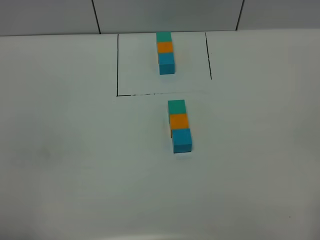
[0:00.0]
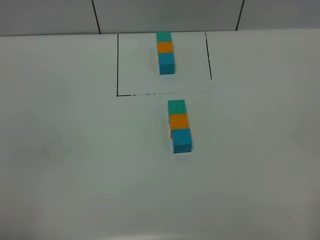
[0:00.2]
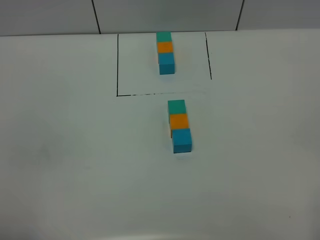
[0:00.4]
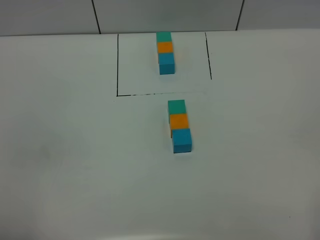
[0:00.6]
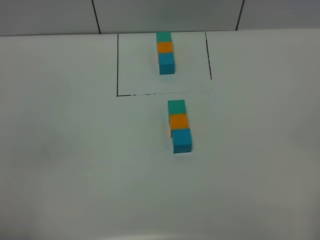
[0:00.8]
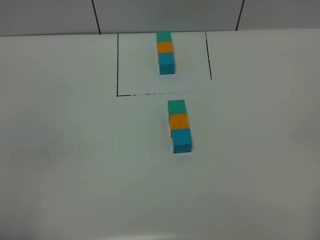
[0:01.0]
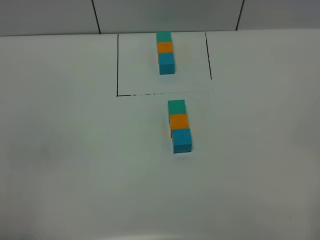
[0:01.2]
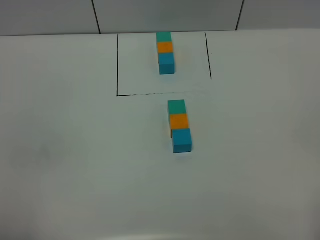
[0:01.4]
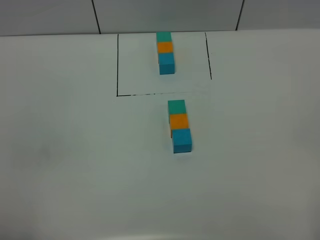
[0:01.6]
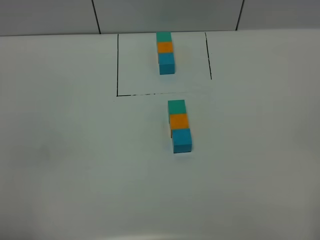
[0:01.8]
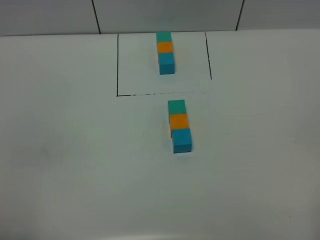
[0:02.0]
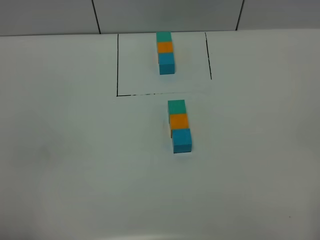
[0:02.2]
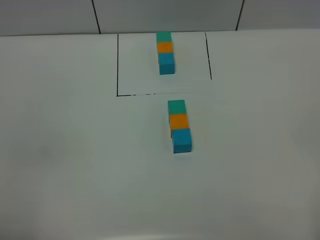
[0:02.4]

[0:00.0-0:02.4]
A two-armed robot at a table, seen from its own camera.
Task of the whole recording: According to the building block template in front, assemble the scattered blocks together.
0:00.0 to 0:02.4: The two grippers keep their place.

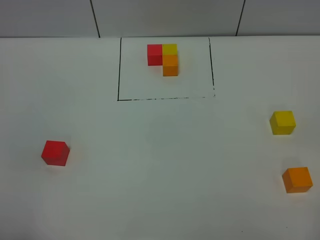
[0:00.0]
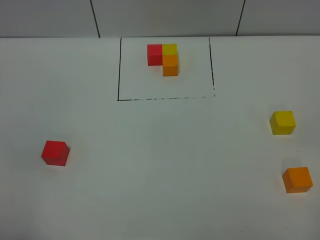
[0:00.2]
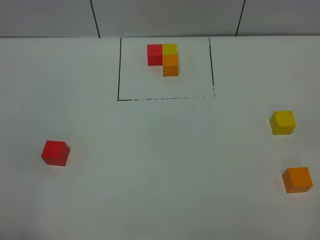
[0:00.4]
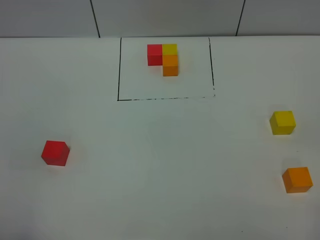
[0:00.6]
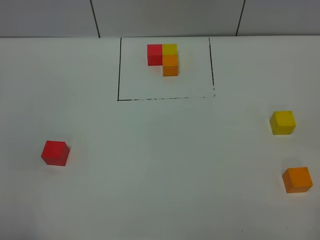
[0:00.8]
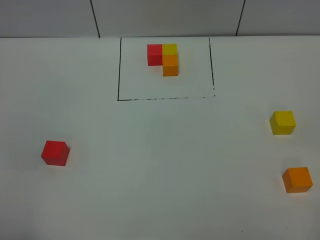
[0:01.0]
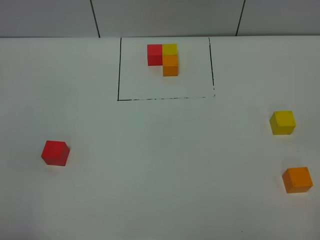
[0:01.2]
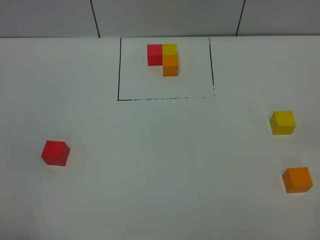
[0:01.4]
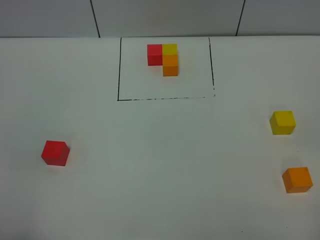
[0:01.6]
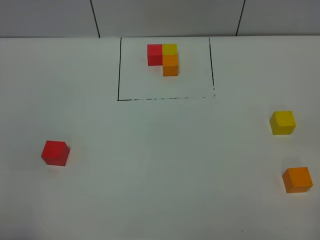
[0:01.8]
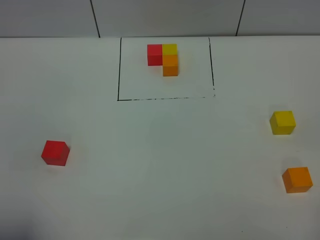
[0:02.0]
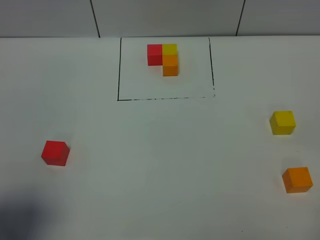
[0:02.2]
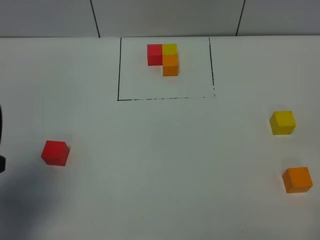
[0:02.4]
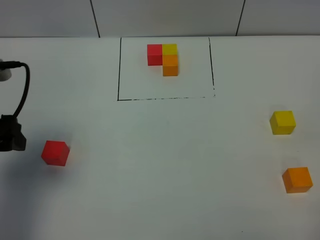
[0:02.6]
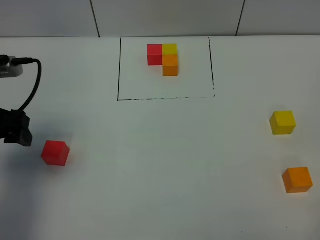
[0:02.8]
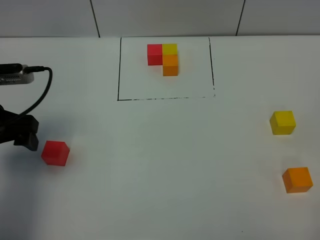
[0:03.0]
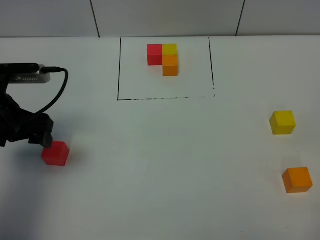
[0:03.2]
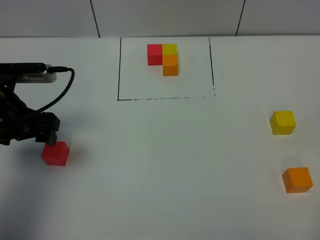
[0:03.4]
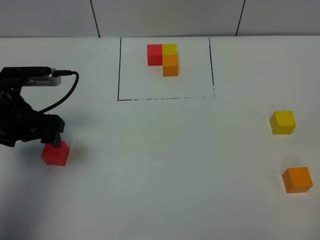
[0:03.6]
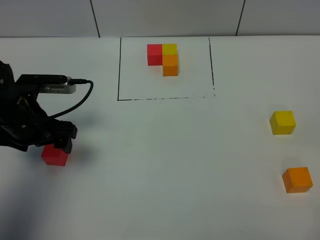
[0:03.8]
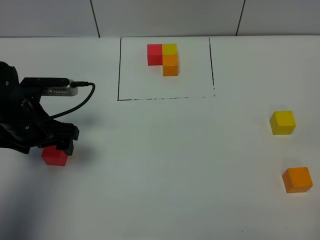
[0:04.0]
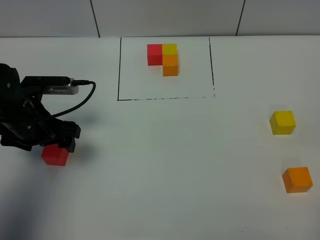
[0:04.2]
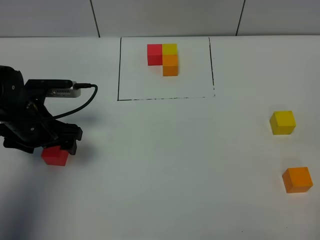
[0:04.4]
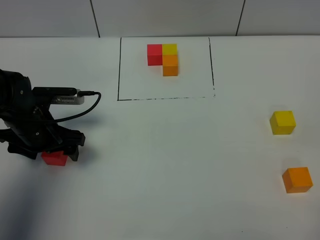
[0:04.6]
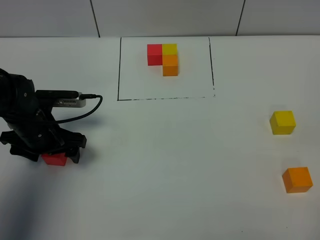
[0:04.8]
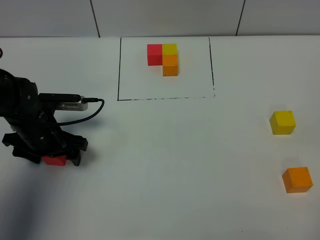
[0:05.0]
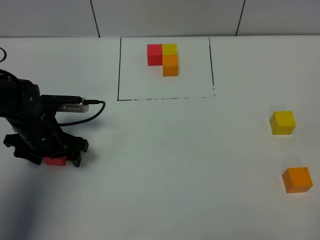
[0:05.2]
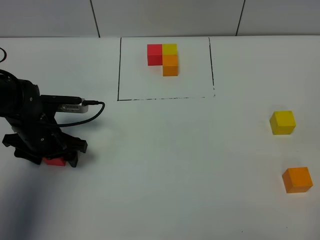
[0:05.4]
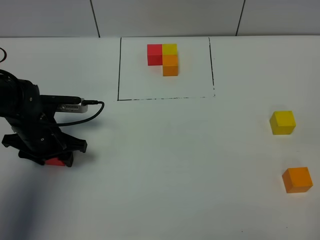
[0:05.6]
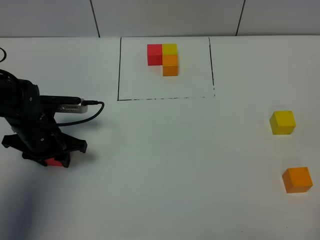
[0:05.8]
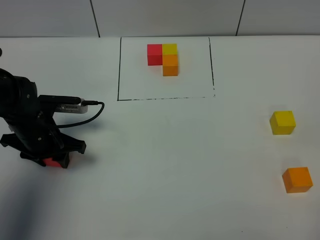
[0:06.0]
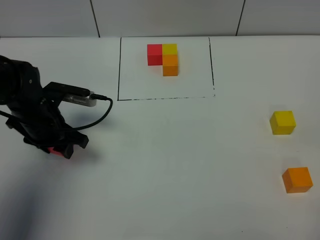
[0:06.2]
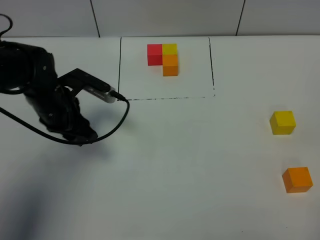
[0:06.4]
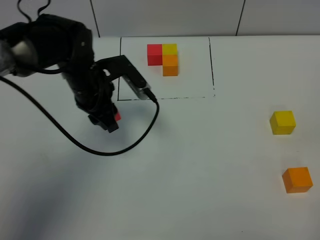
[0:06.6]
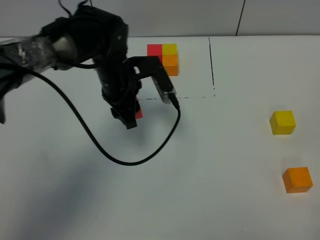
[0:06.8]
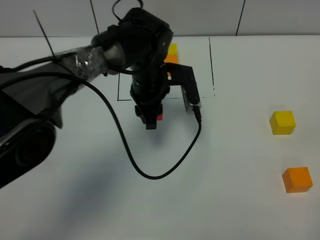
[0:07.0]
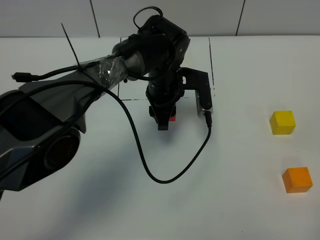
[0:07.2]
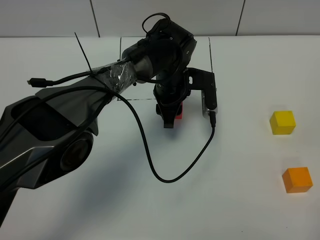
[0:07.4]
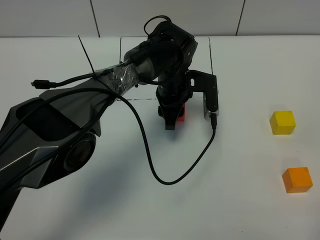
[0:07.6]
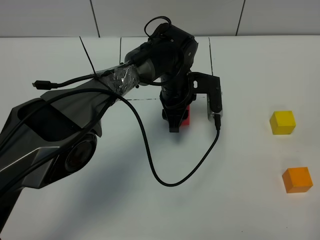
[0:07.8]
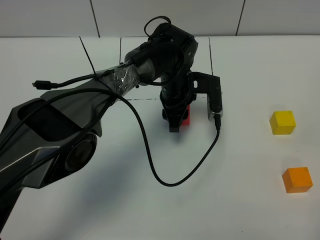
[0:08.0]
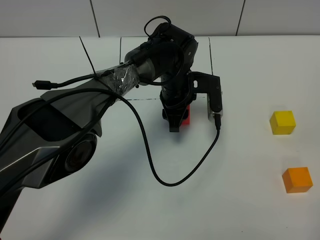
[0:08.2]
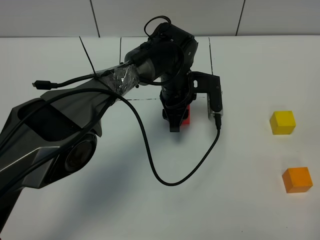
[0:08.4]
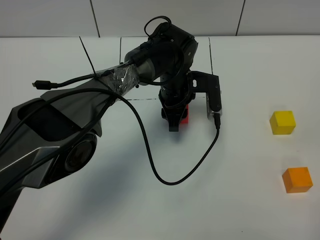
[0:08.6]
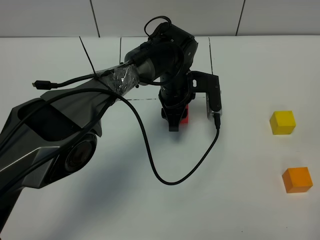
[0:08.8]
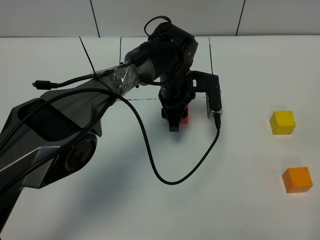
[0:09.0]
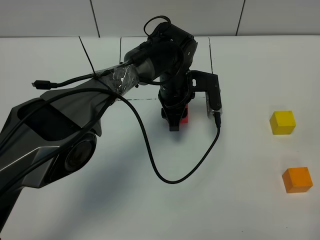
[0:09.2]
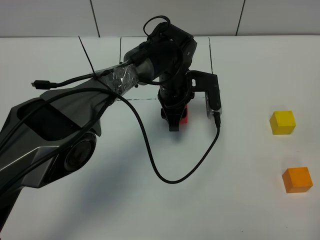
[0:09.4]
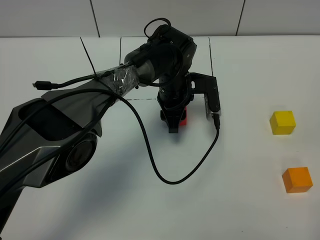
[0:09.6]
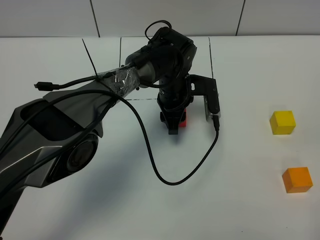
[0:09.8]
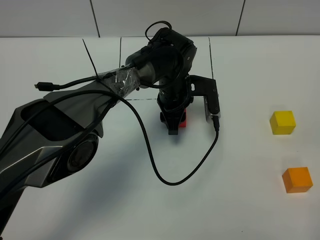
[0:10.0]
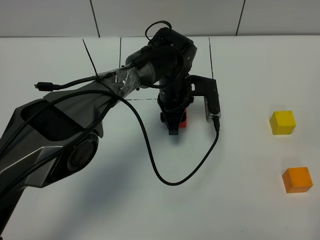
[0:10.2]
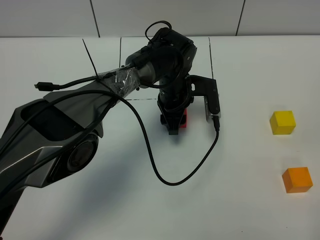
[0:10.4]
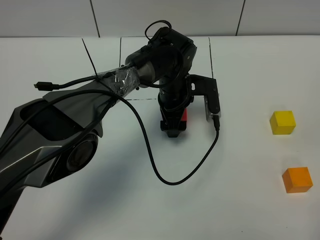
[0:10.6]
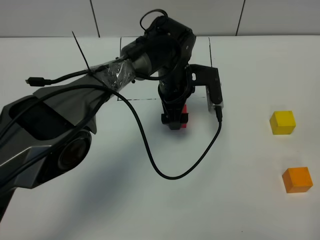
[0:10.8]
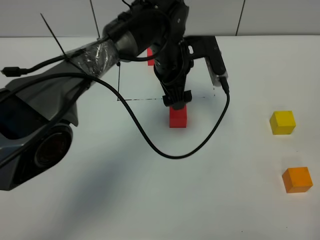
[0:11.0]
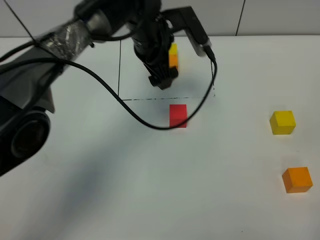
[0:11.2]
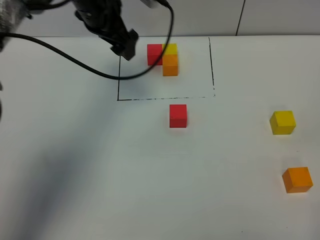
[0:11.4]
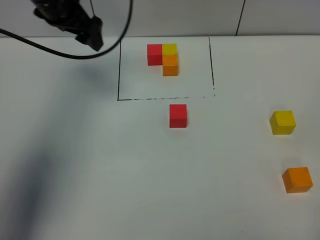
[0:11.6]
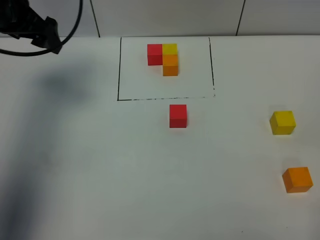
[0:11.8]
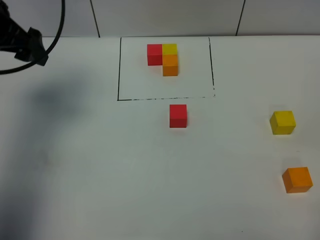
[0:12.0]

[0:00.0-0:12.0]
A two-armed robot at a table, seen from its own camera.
Task of the whole recording: According to the building block template in front, assemble the scattered blocks together.
Step, 0:00.0 to 0:10.8: Put the red build block in the center of the table.
0:00.0 to 0:01.6: Neither gripper changes place.
0:01.6 to 0:03.0: The left gripper shifts approximately 25 cm forward.
0:03.0 to 0:04.4: The left gripper goes about 5 cm downward.
0:04.4 to 0:06.0: The left gripper closes its fingers.
0:06.0 to 0:07.6: The left gripper moves to the right and forward, roughly 30 cm.
0:07.6 to 0:10.4: Neither gripper changes place.
0:10.4 to 0:12.0: The left gripper goes roughly 35 cm to the left and upward, and opens its fingers.

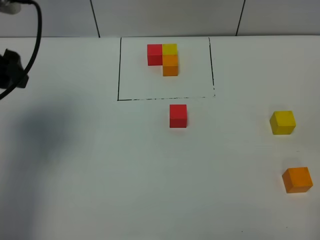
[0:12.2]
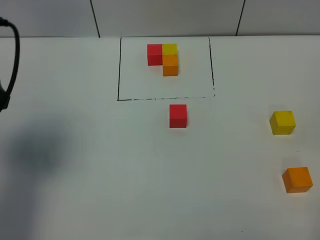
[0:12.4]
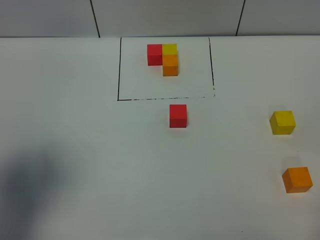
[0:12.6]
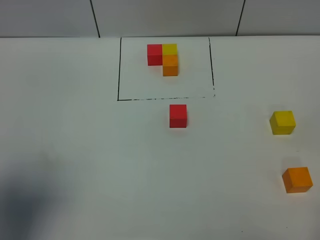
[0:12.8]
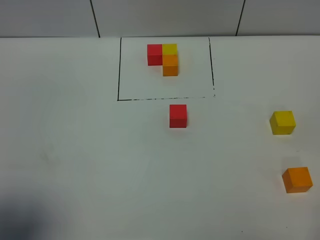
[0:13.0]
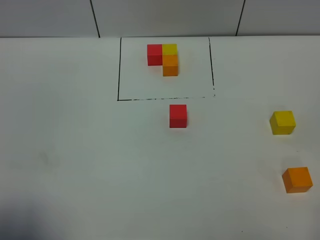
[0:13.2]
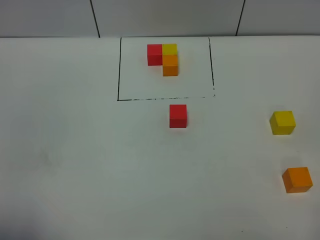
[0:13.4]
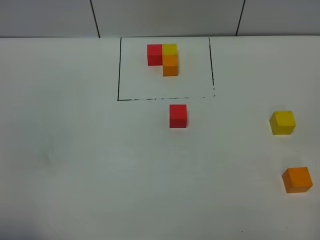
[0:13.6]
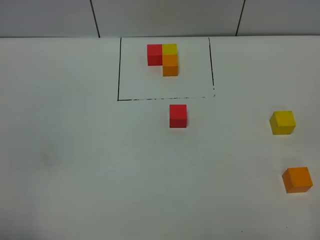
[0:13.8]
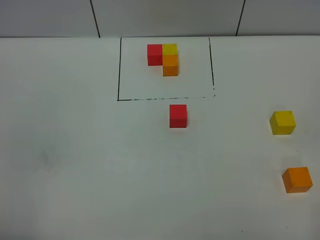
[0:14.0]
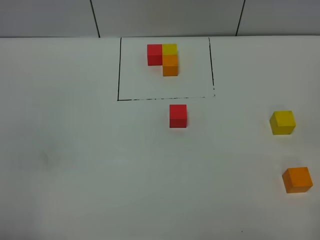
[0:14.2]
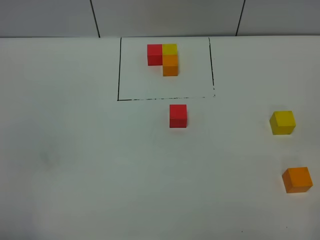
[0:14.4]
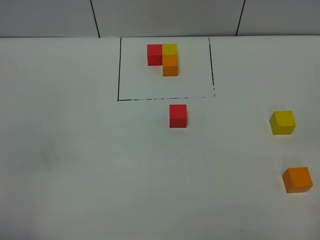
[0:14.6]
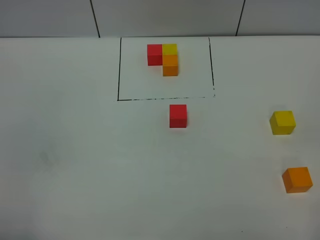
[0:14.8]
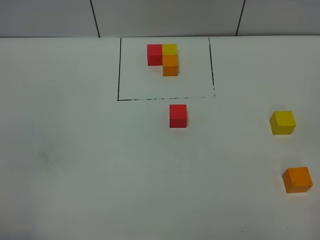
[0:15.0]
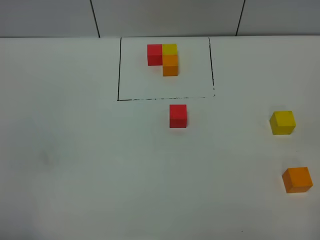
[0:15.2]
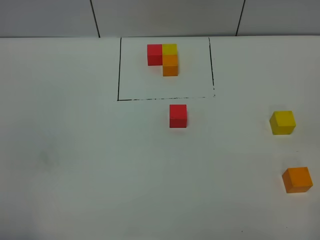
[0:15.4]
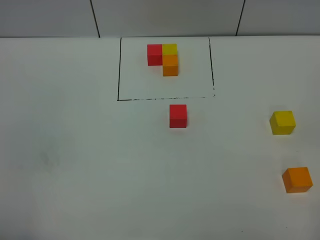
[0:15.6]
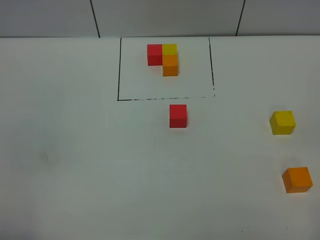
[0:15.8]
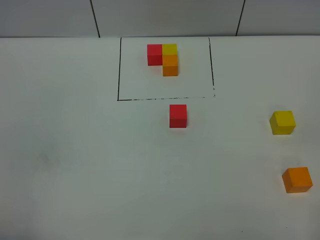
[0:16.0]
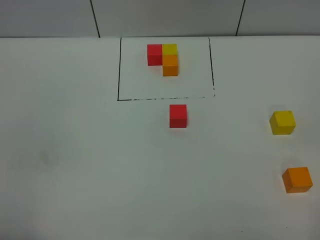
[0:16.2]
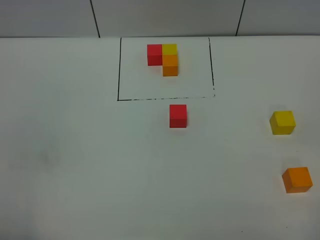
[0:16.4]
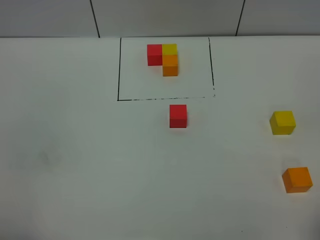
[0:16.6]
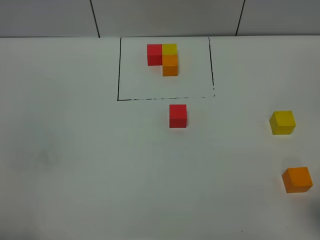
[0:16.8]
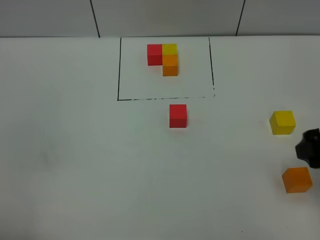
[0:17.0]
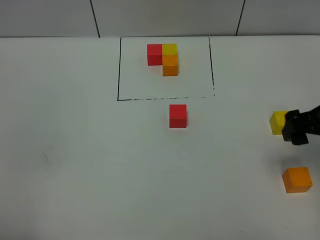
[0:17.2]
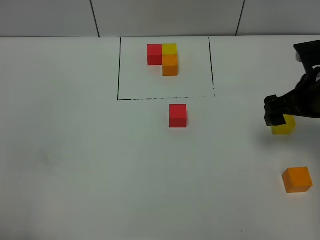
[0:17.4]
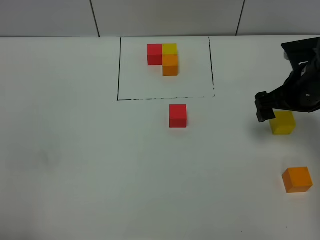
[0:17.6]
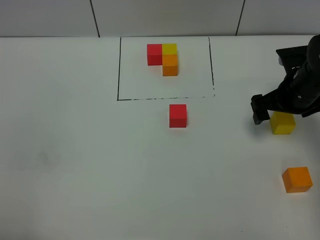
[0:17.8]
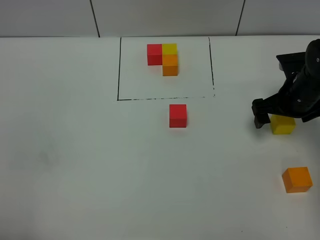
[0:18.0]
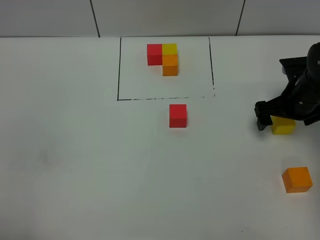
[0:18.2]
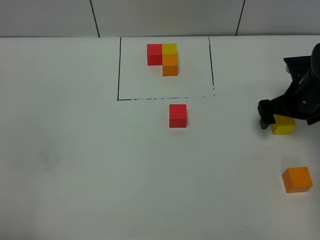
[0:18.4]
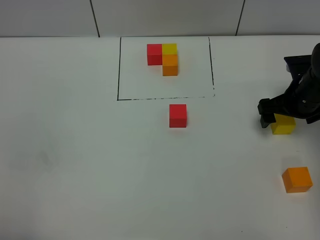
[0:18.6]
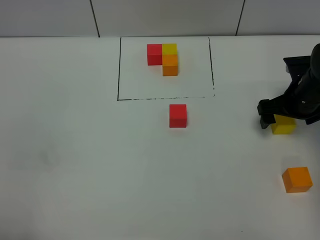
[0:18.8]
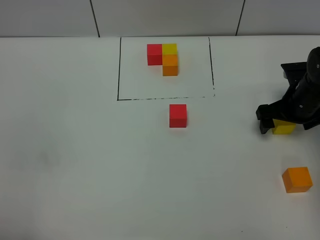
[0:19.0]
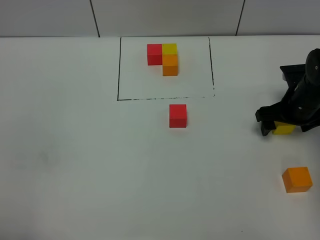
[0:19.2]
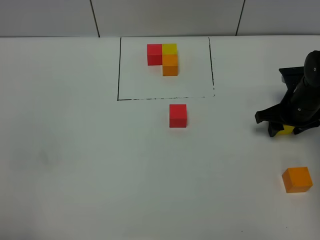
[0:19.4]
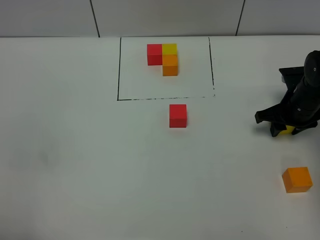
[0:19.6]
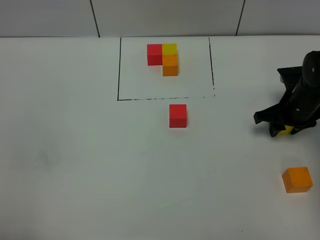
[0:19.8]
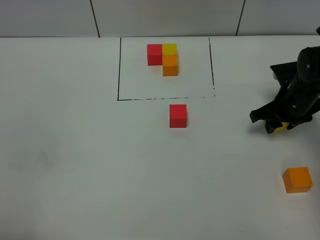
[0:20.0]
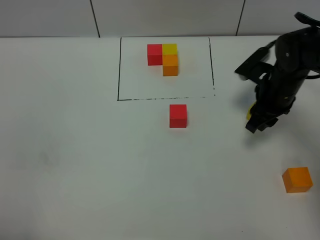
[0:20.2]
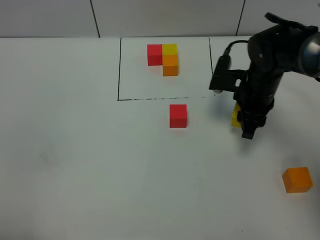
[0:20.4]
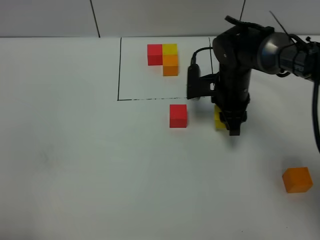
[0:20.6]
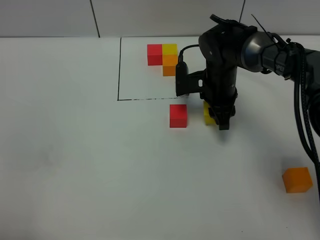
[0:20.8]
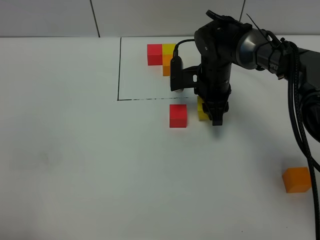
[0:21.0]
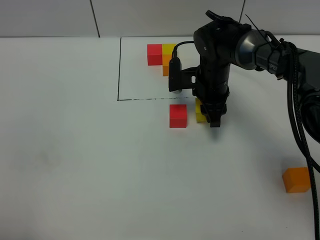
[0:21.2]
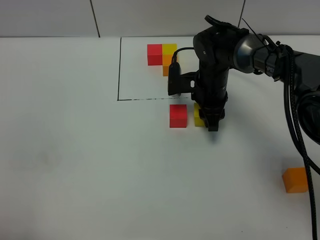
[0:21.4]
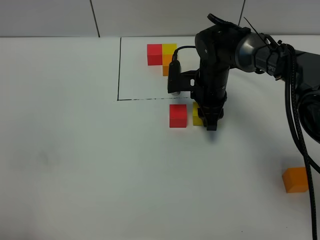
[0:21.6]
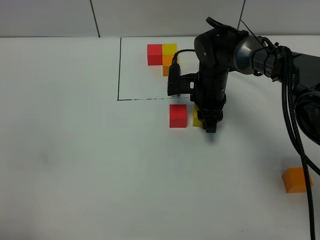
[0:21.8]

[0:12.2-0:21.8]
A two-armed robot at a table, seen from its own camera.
Task of the whole recording: According to the building block template in front, assemble the scattered blocks together.
0:12.2 to 0:13.8: The left gripper moves backward, roughly 30 cm.
0:13.8 to 0:15.4: The two grippers keep their place.
0:15.4 to 0:17.0: The right gripper travels forward by about 20 cm.
0:17.0 to 0:18.6: The right gripper shifts some 20 cm forward and downward.
0:18.6 to 0:20.2: The right gripper travels to the left by about 5 cm, and closes its fingers.
0:20.2 to 0:21.8: The right gripper heads to the left and forward, covering some 10 cm.
